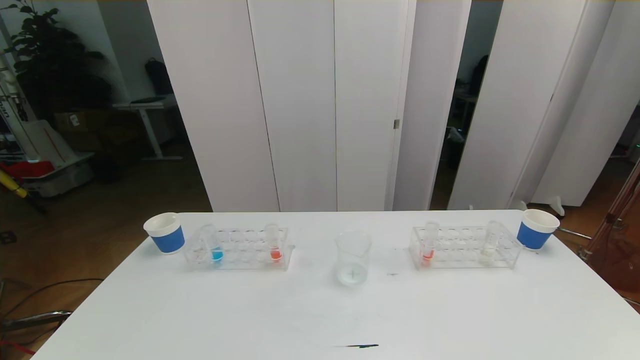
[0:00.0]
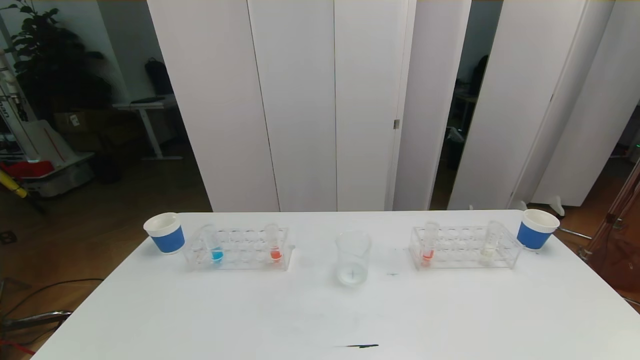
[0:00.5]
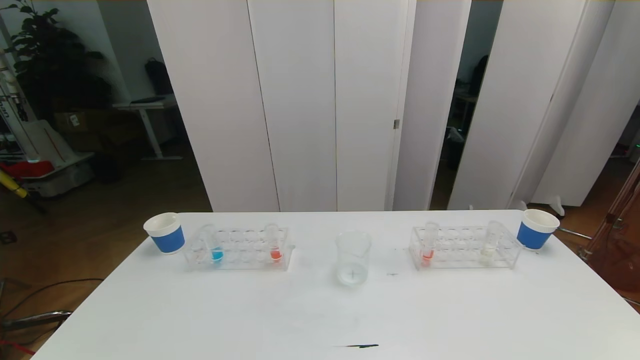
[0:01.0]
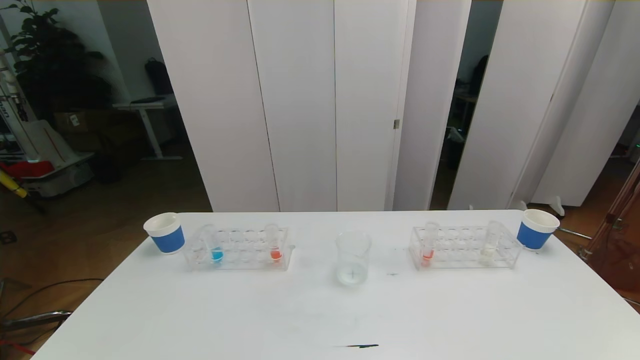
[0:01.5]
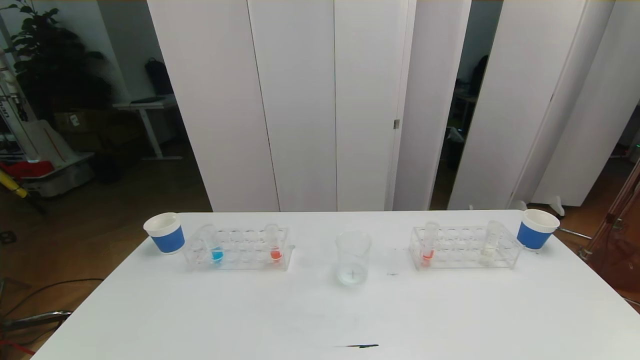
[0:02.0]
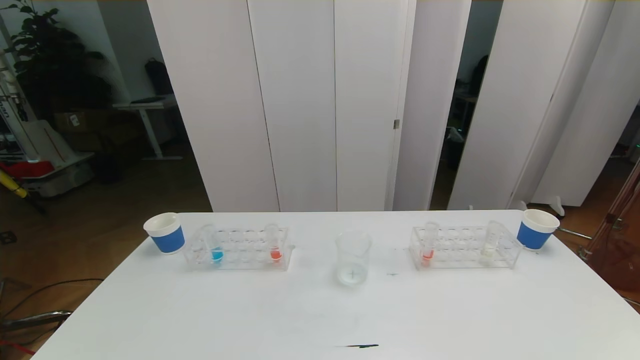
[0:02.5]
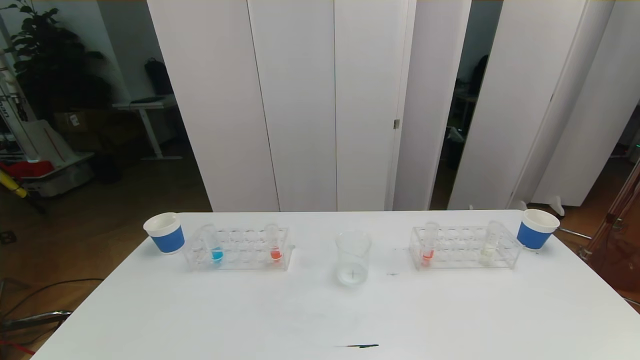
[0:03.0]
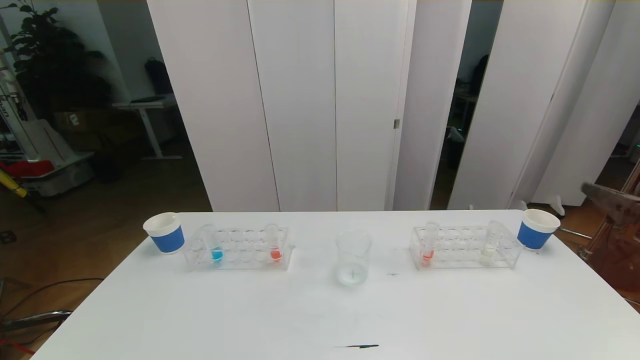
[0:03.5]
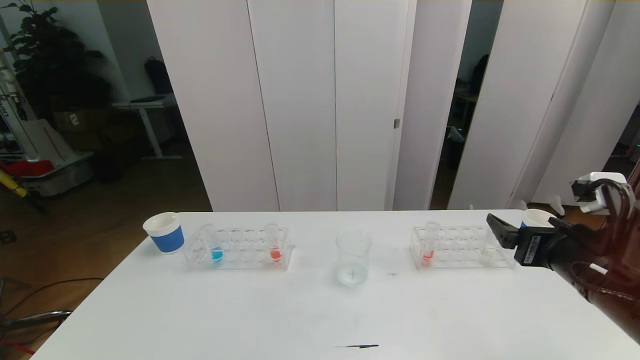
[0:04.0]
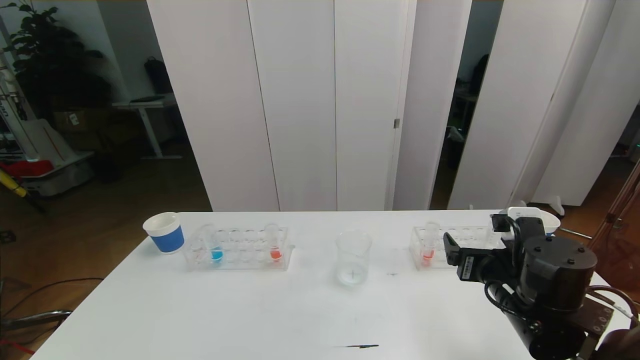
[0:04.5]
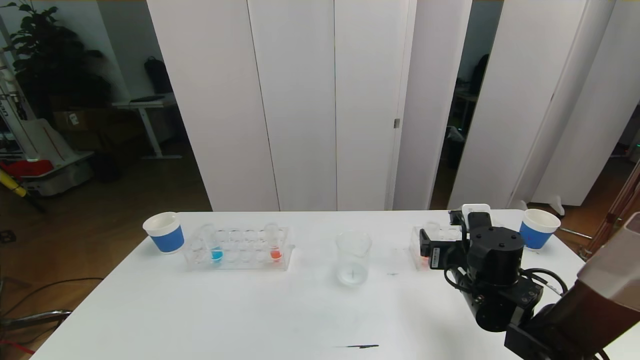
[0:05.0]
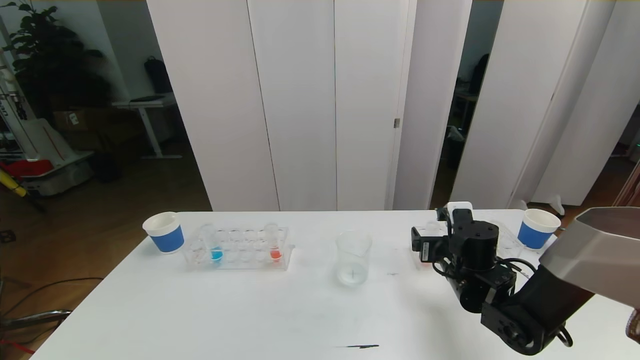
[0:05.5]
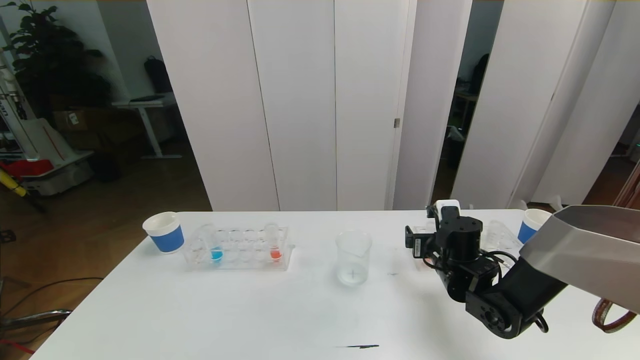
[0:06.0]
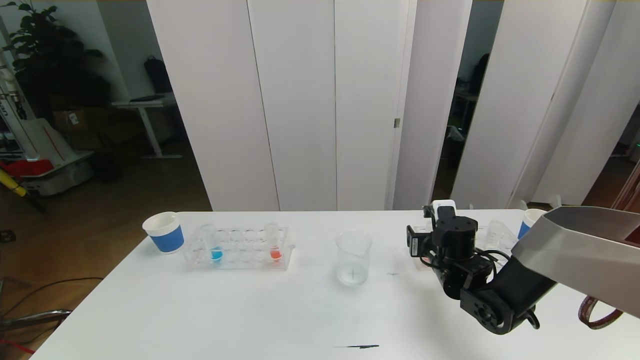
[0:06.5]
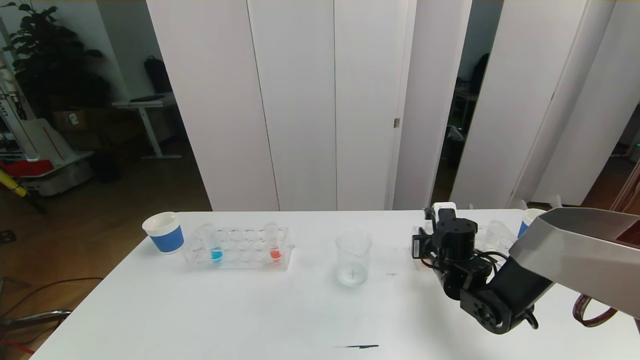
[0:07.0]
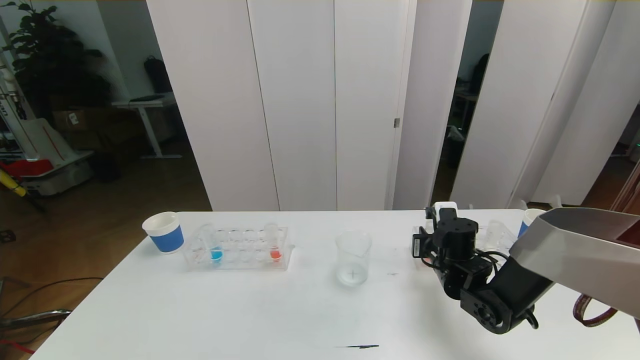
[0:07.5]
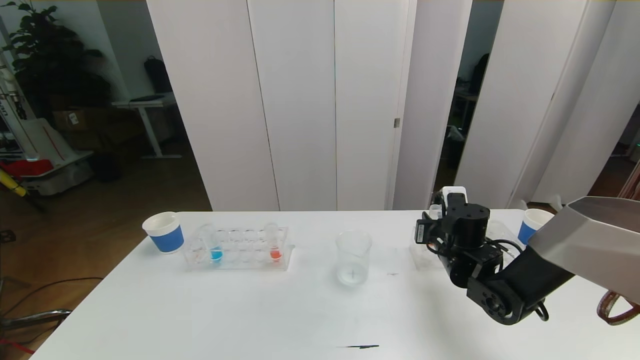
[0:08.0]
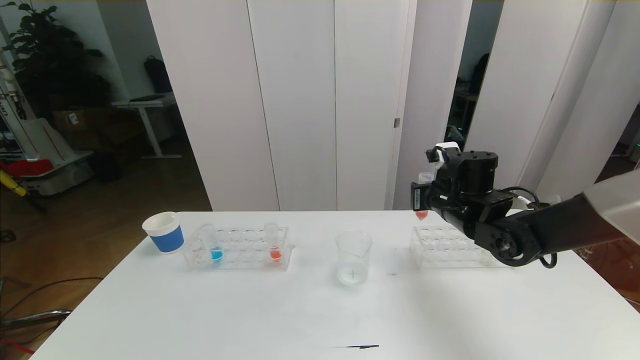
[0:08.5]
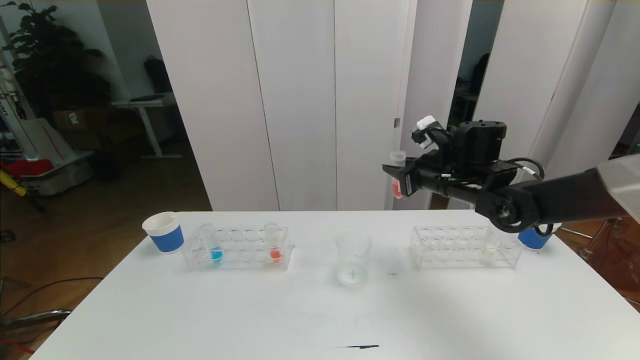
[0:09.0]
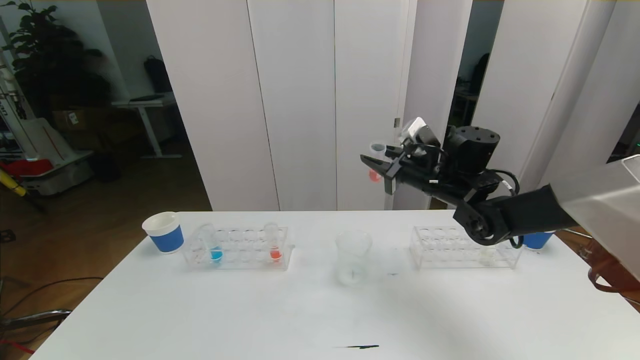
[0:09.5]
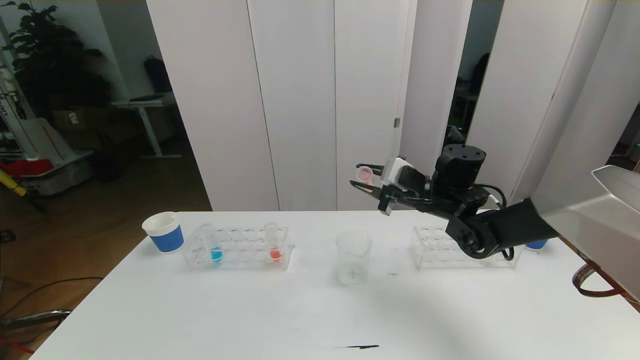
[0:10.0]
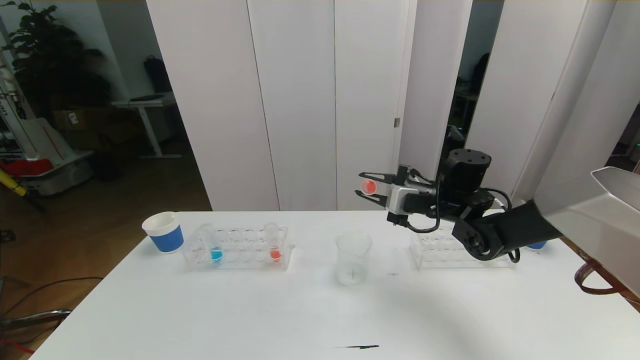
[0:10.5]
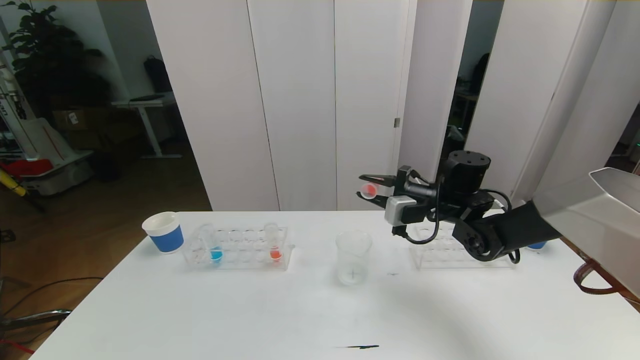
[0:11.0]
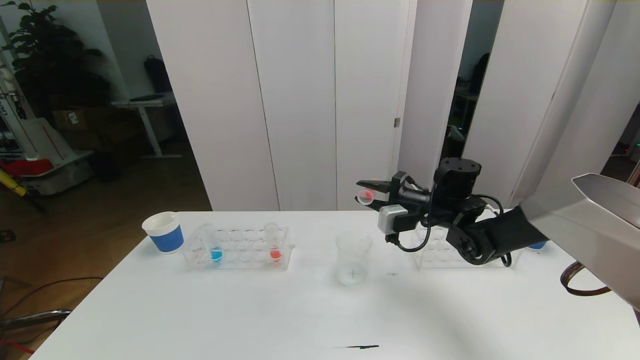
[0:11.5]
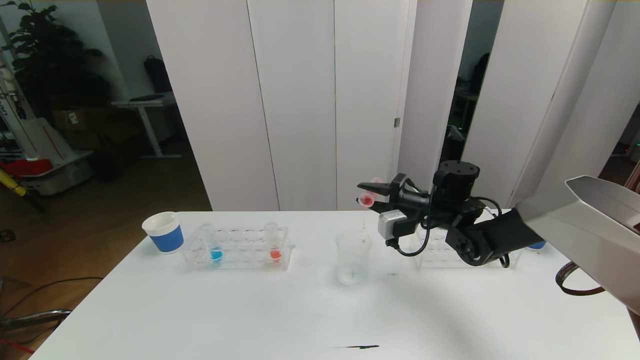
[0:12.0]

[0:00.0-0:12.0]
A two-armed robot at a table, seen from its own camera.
Task of the whole recording: pick up the test tube with red pigment the test tube with blue pigment and the test tube with white pigment by grippers and pour them into the beaker.
0:00.0 to 0:02.0: Neither gripper changes place.
0:02.0 to 0:04.0: The right gripper travels forward by about 25 cm.
0:04.0 to 0:06.0: The right gripper is displaced forward, downward and to the left by roughly 20 cm.
0:06.0 to 0:08.0: The right gripper closes its fingers.
0:08.0 to 0:10.0: The right gripper travels upward and forward by roughly 10 cm.

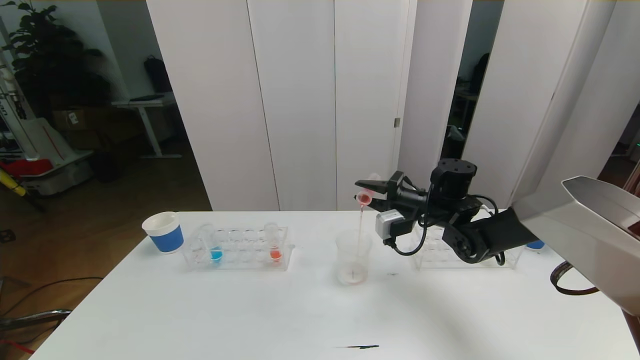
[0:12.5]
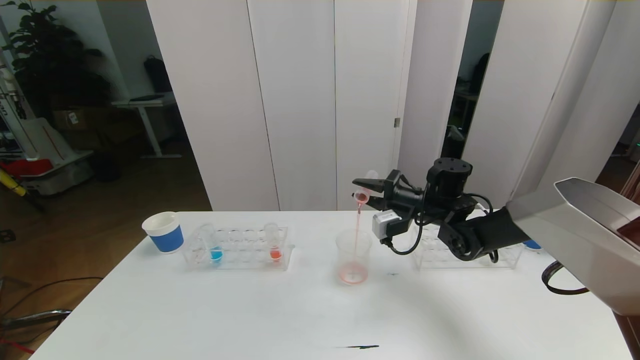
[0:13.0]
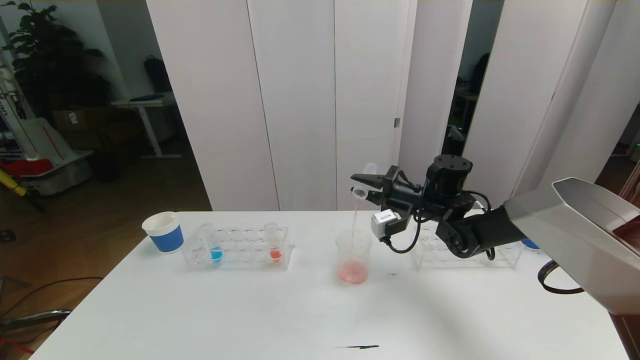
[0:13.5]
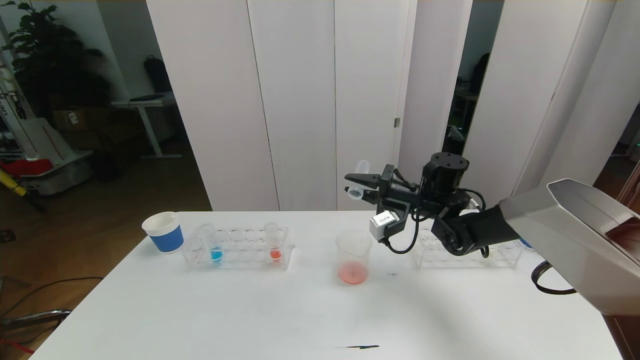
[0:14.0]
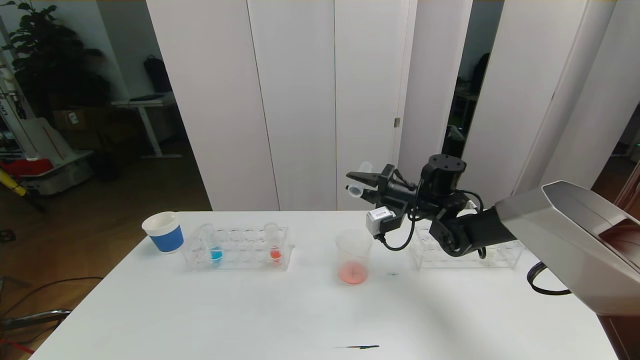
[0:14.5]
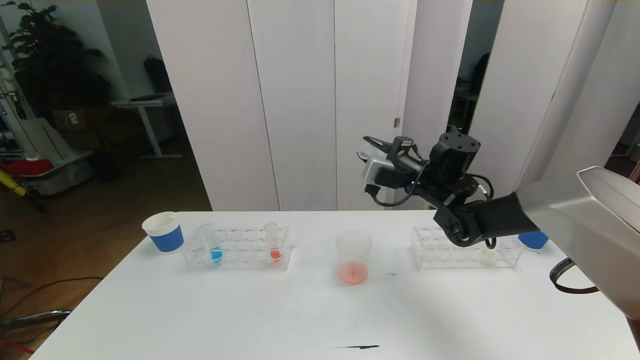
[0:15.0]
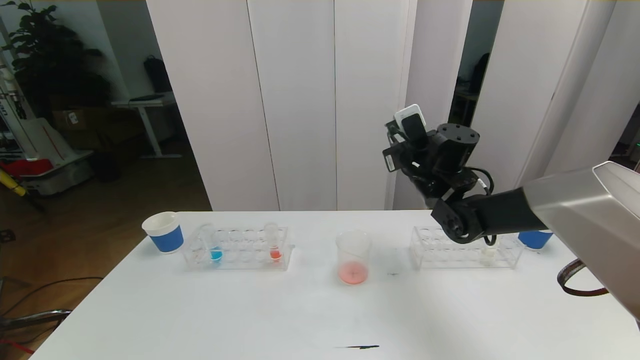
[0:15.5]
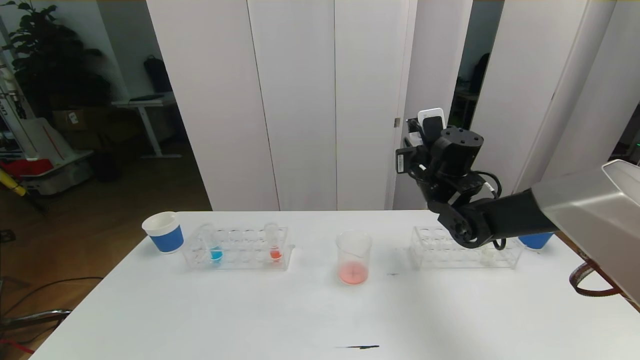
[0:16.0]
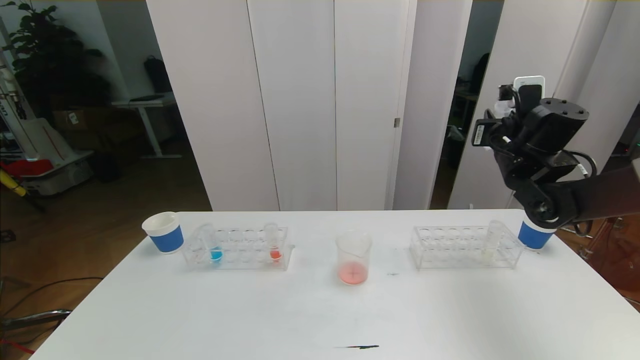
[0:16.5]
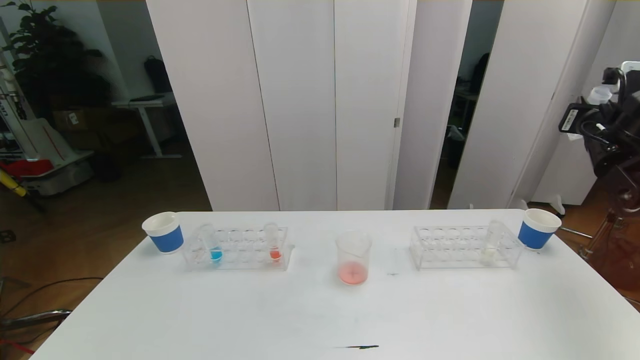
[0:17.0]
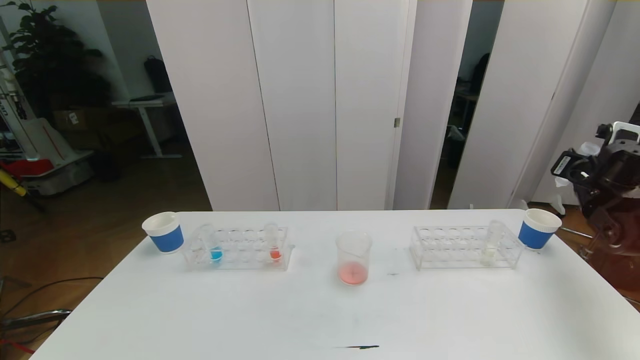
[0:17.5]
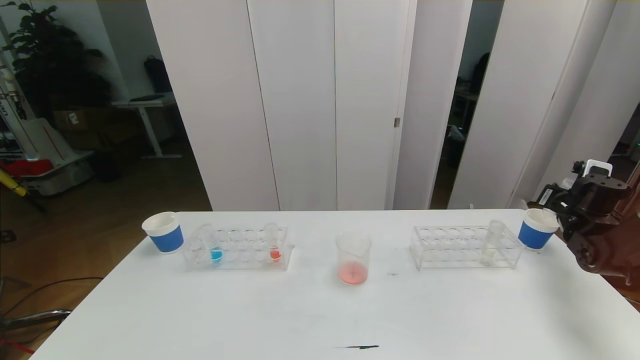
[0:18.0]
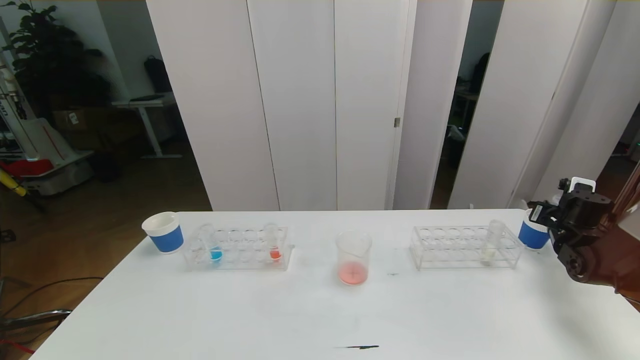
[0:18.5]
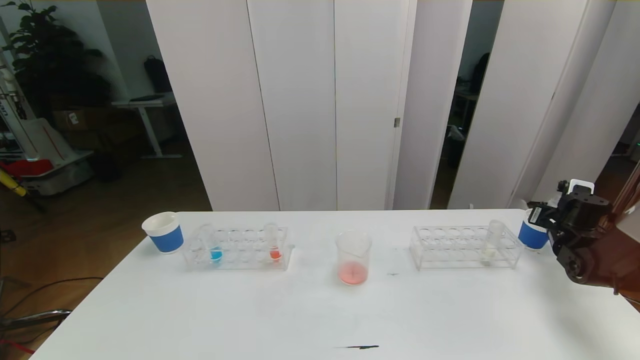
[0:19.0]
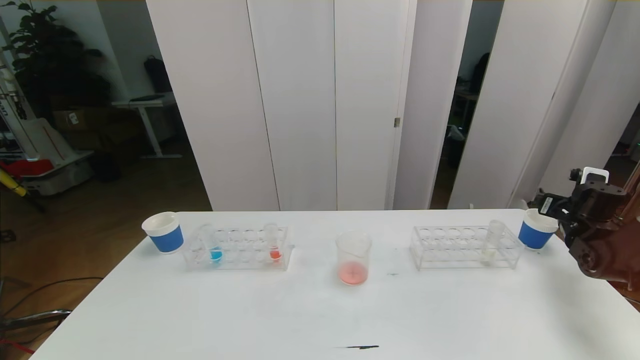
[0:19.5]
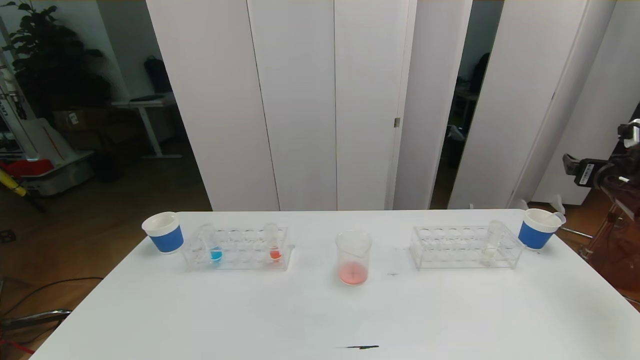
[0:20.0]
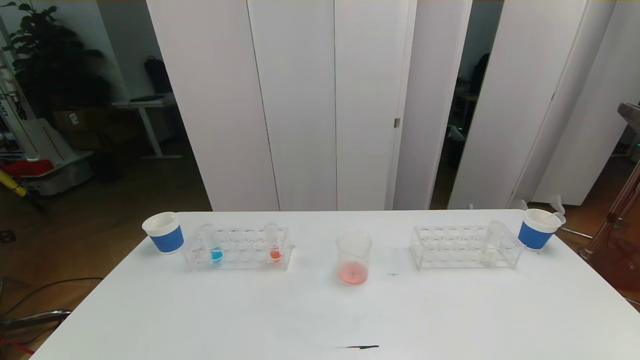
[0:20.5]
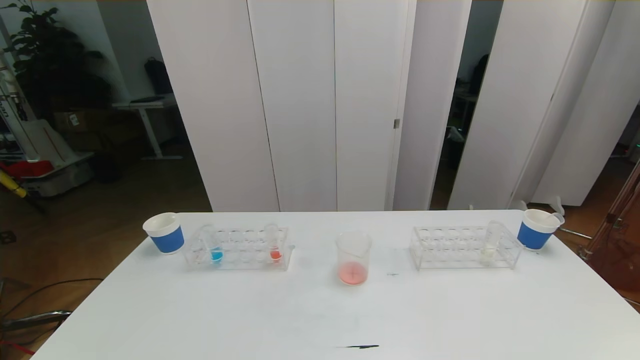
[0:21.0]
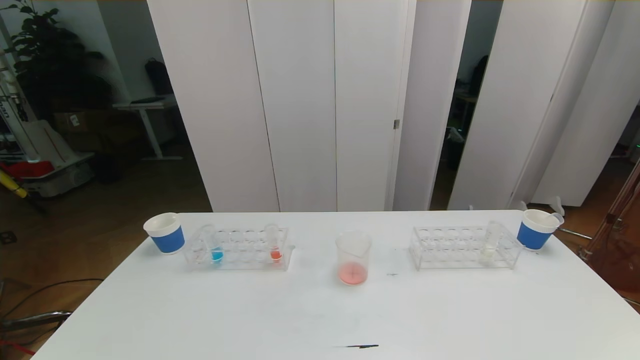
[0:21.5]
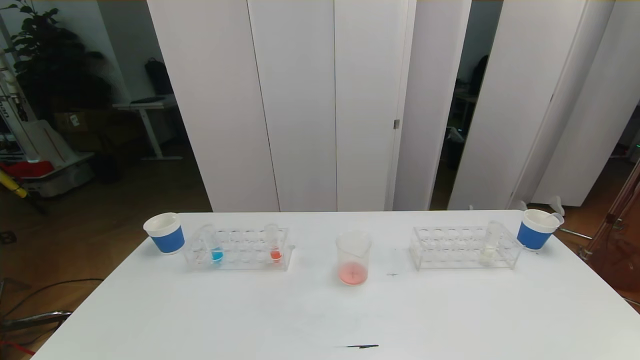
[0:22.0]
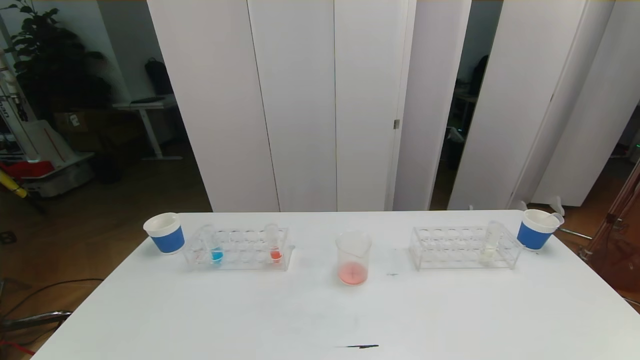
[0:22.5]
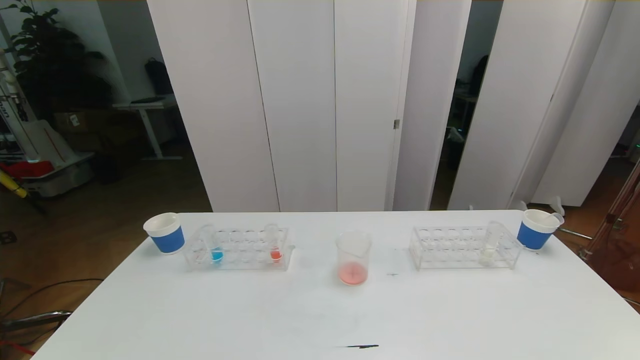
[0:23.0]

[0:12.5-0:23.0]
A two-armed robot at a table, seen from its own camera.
Task of the whole recording: pick up the test tube with red pigment the test tube with blue pigment and the test tube with white pigment by grippers and pour them into the beaker.
0:12.5 to 0:14.5: There are only small adjustments of the grippers.
0:14.5 to 0:16.5: The right gripper shifts some 20 cm to the right and upward.
0:16.5 to 0:19.0: The right gripper goes approximately 25 cm downward and to the right.
0:19.0 to 0:21.0: The right gripper goes some 50 cm backward and upward, and opens.
